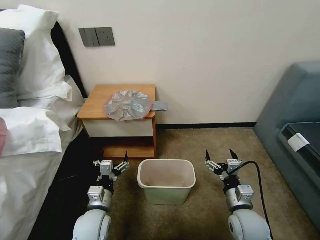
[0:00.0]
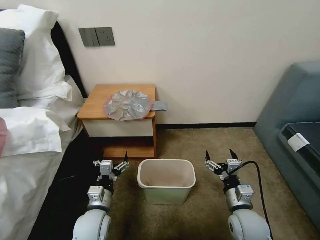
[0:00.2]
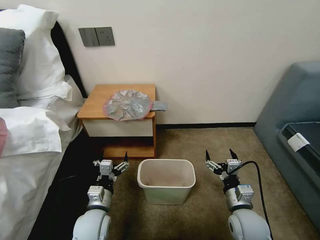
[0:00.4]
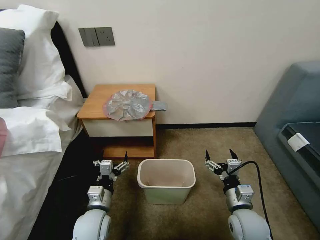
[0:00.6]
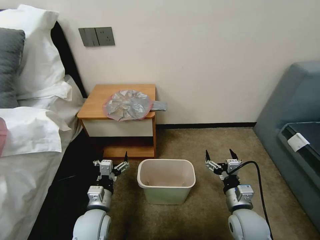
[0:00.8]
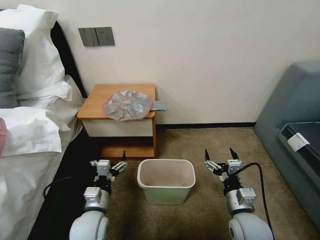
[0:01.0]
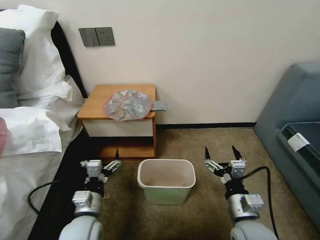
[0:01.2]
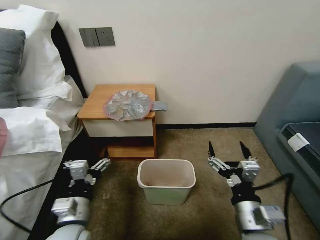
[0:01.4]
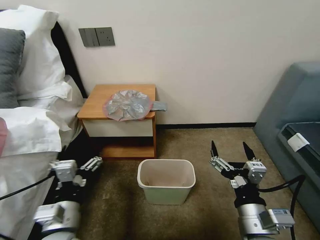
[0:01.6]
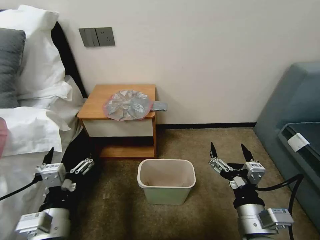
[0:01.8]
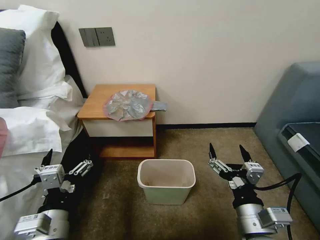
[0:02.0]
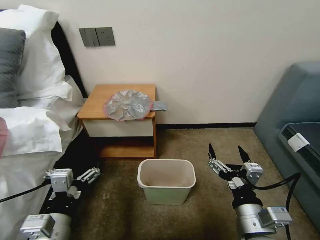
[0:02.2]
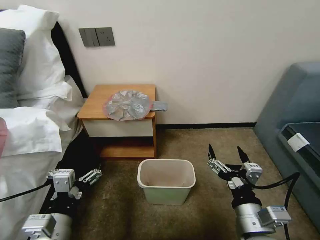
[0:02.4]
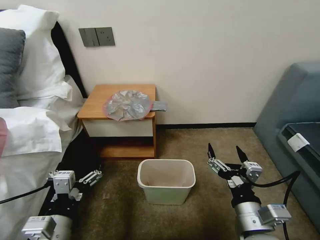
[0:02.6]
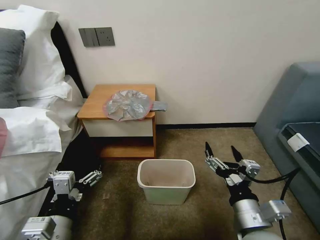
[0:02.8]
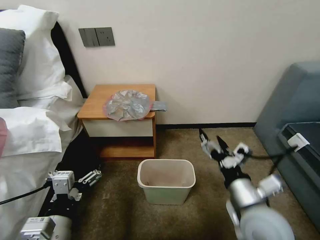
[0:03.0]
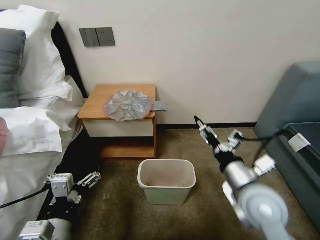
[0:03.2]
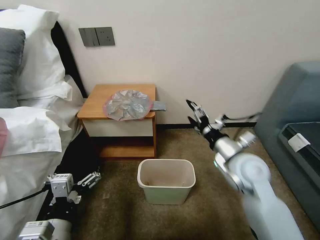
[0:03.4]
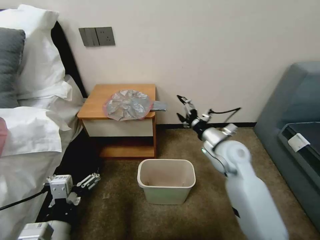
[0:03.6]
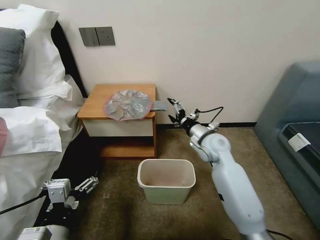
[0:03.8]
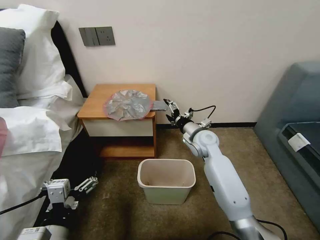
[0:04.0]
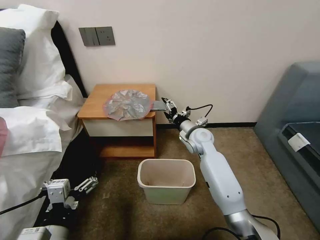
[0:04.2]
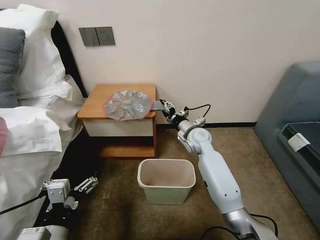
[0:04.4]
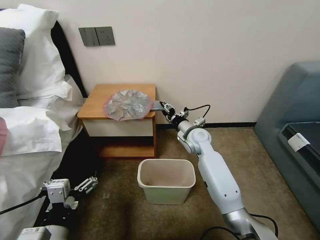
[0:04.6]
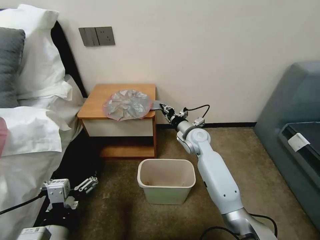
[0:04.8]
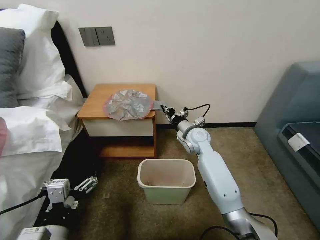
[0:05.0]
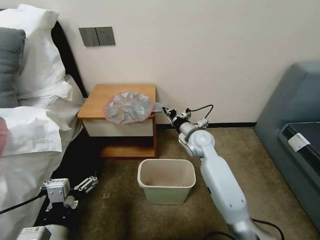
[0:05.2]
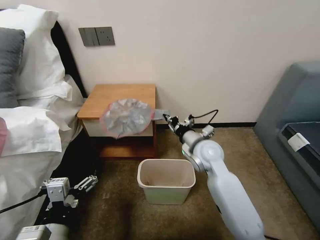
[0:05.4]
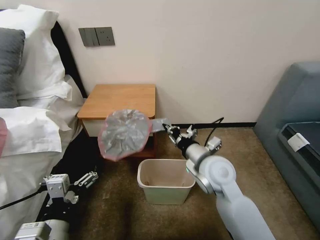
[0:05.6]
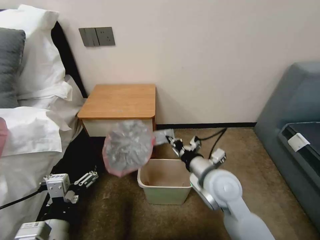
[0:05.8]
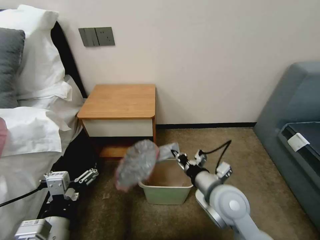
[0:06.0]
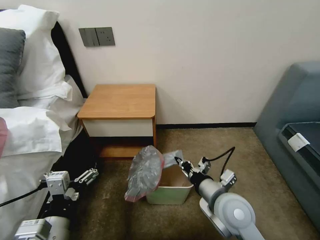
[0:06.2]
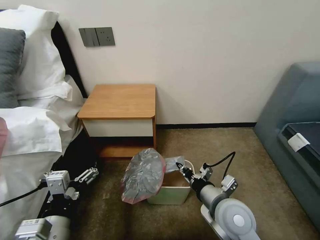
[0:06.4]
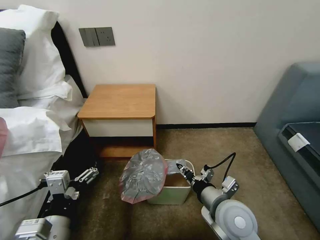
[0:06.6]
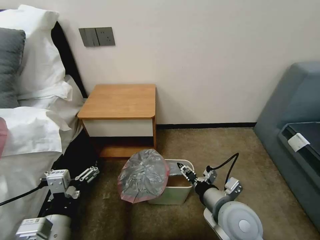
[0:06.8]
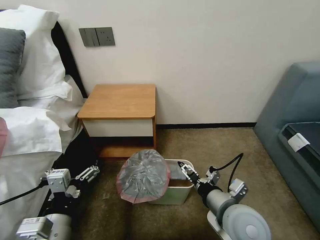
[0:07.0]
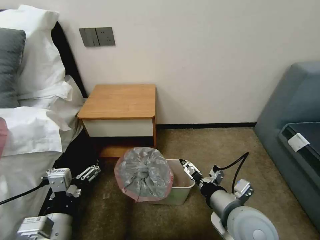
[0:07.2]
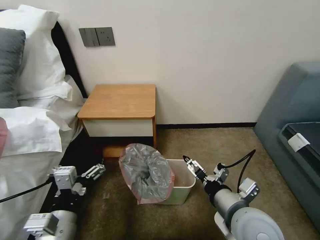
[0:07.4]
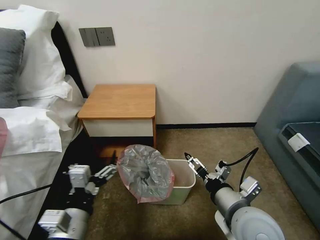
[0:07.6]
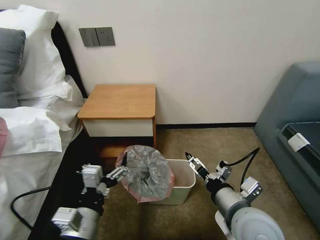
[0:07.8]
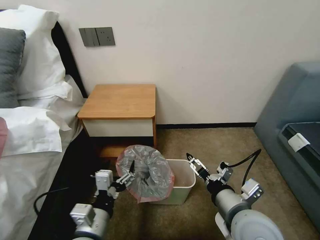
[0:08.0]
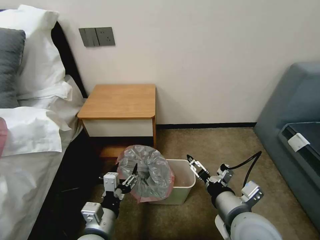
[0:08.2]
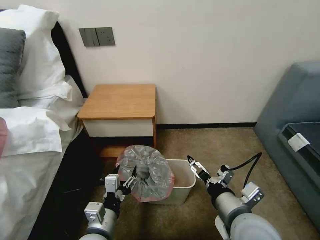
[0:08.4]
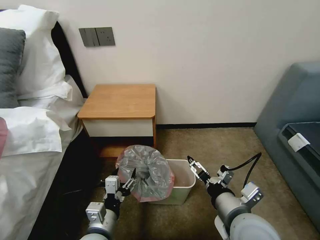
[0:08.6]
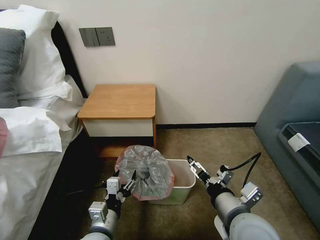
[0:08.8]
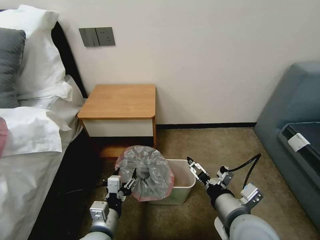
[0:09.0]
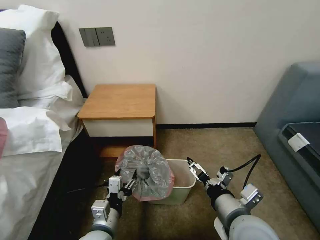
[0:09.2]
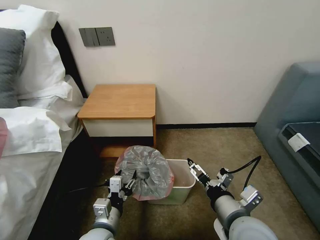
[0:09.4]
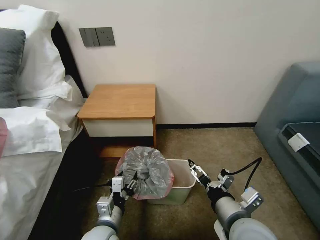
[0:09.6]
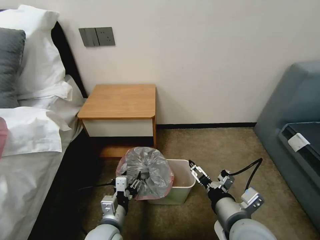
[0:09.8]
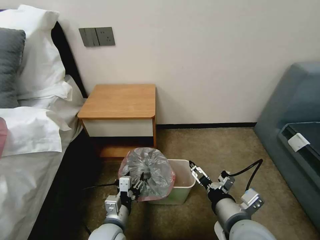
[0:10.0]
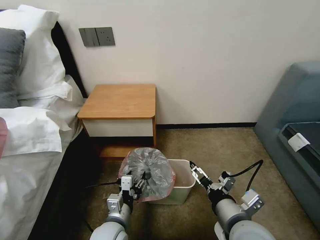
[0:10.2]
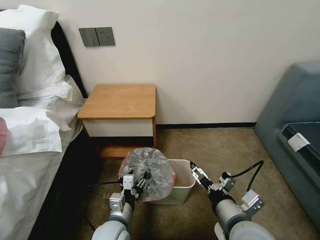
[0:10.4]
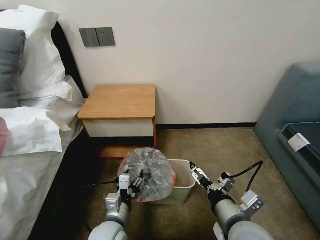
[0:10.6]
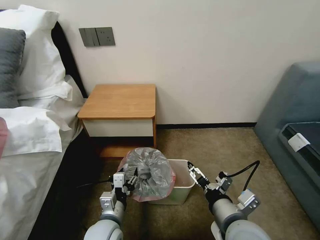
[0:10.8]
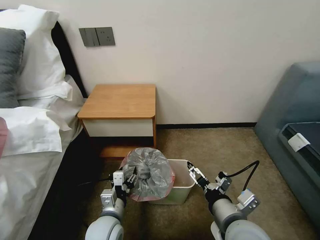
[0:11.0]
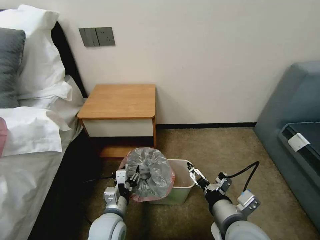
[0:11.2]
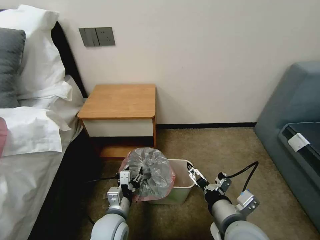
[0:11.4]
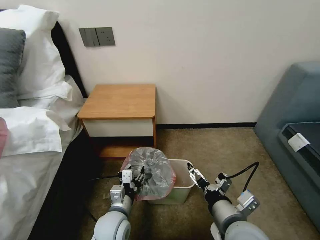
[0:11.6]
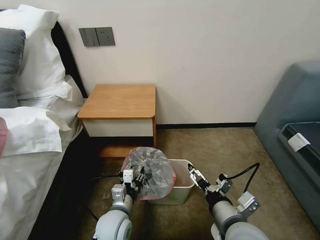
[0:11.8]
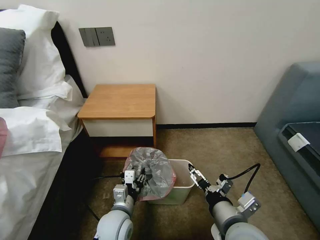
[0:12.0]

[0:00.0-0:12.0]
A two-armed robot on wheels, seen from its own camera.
Task of the whole recording: Pick up the garbage bag from the table and place it over the trash can.
0:01.6 to 0:03.0: The right gripper travels forward by some 5 cm.
0:03.0 to 0:04.4: The right gripper heads forward, covering roughly 30 cm.
0:04.4 to 0:06.0: The right gripper goes about 25 cm backward, and closes its fingers.
0:06.0 to 0:07.6: The right gripper travels backward by about 5 cm, and opens its fingers.
0:07.6 to 0:09.0: The left gripper goes approximately 10 cm downward.
0:09.0 to 0:10.4: The left gripper changes place by about 5 cm.
0:10.4 to 0:12.0: The grippers make only small movements.

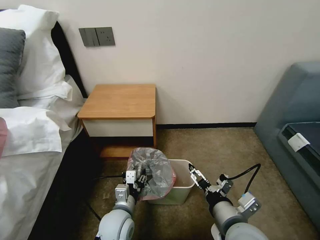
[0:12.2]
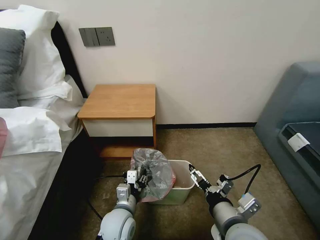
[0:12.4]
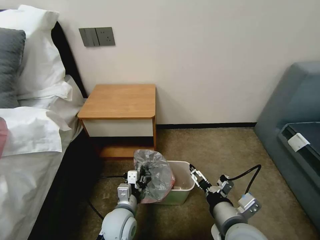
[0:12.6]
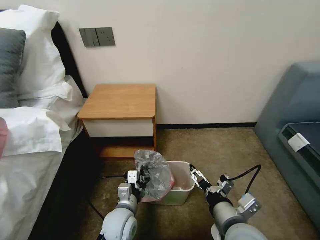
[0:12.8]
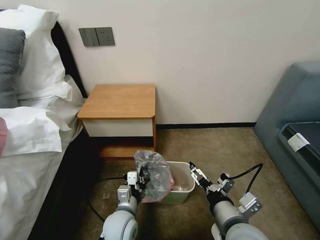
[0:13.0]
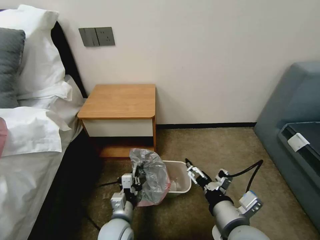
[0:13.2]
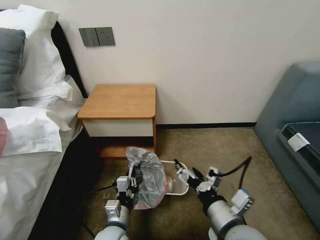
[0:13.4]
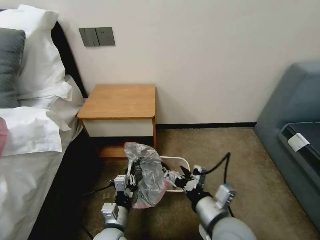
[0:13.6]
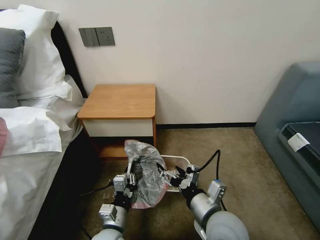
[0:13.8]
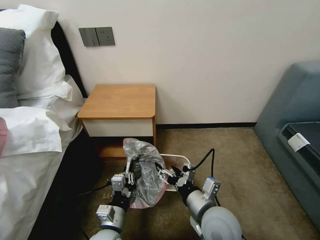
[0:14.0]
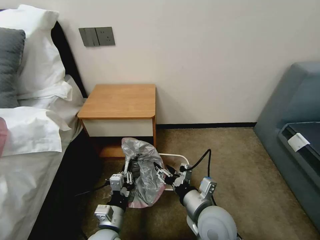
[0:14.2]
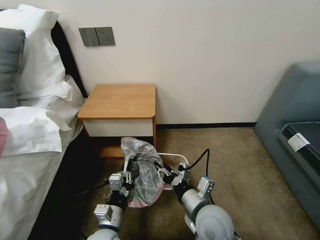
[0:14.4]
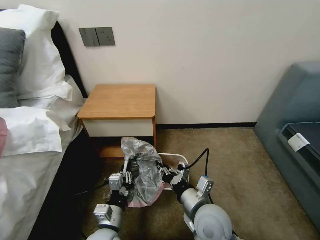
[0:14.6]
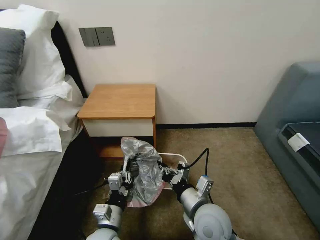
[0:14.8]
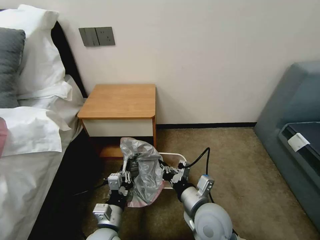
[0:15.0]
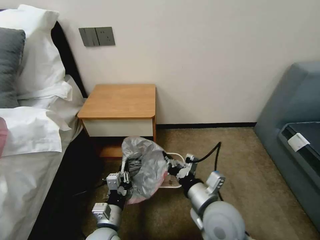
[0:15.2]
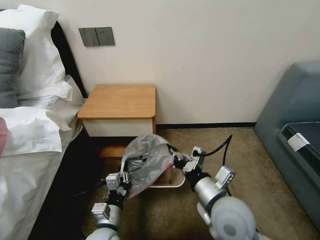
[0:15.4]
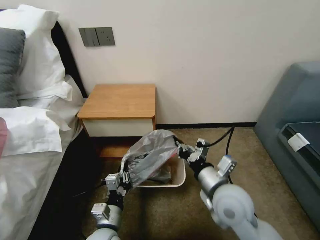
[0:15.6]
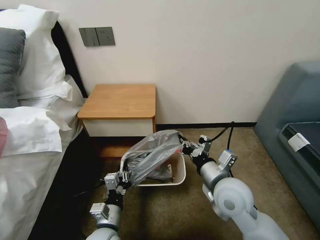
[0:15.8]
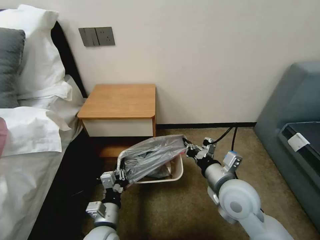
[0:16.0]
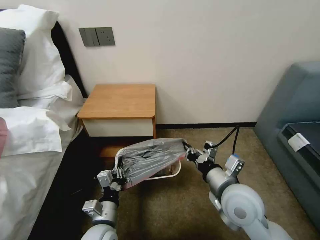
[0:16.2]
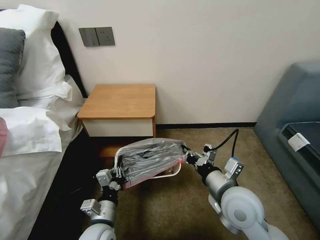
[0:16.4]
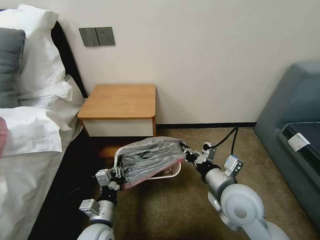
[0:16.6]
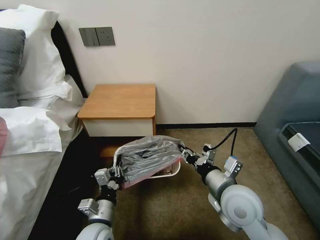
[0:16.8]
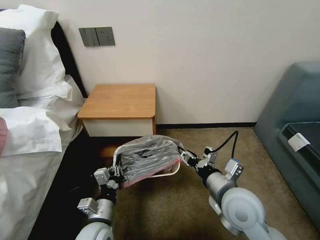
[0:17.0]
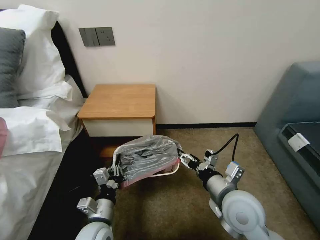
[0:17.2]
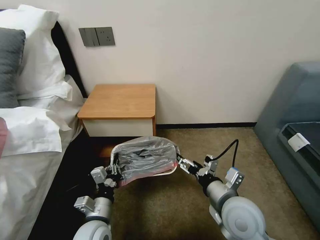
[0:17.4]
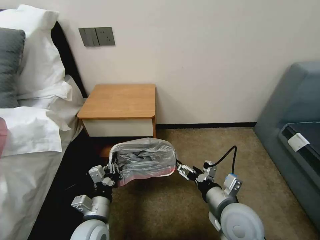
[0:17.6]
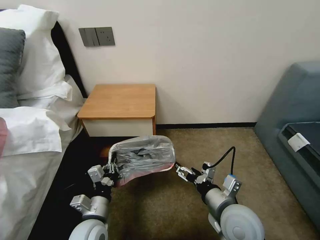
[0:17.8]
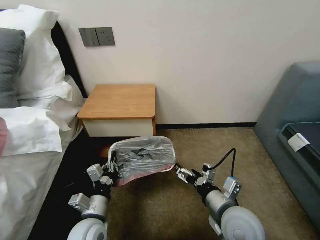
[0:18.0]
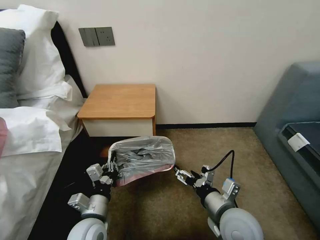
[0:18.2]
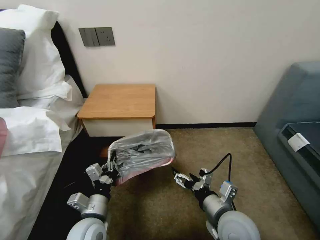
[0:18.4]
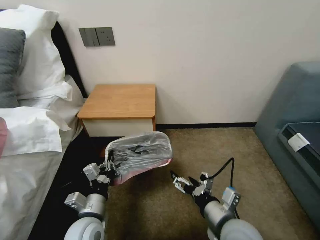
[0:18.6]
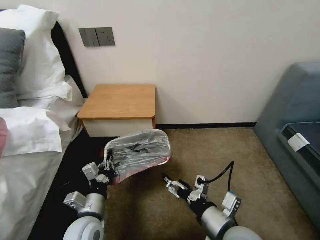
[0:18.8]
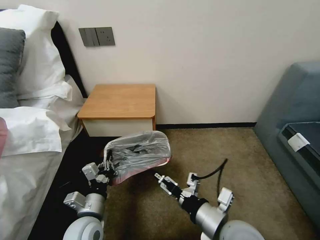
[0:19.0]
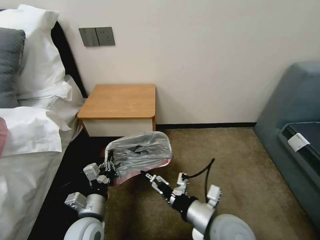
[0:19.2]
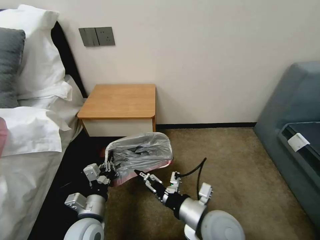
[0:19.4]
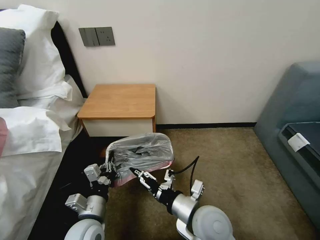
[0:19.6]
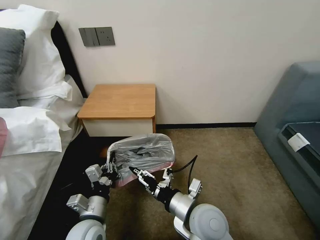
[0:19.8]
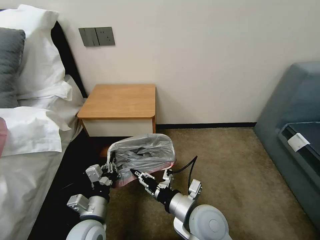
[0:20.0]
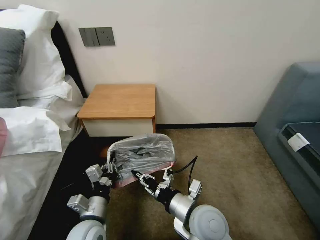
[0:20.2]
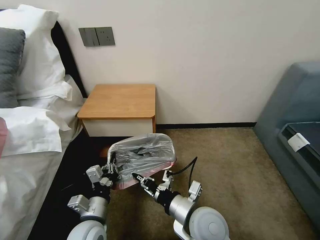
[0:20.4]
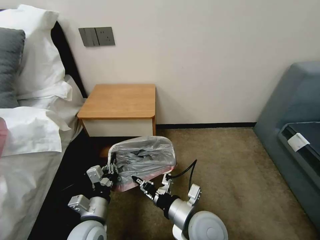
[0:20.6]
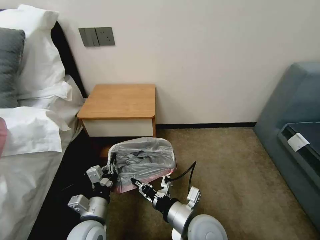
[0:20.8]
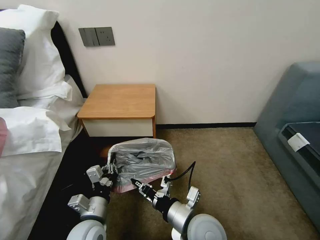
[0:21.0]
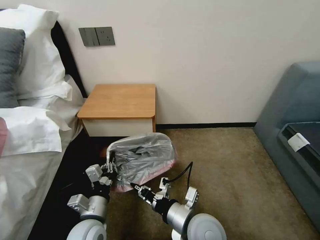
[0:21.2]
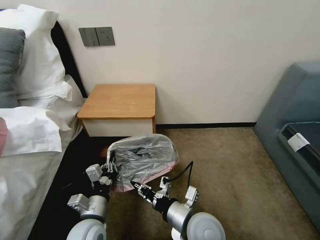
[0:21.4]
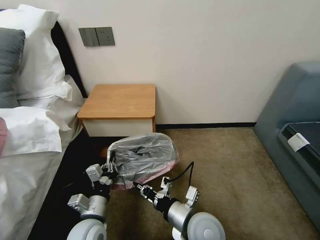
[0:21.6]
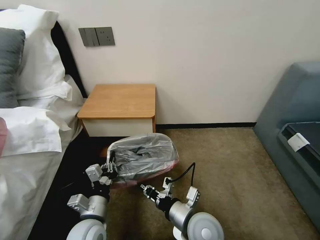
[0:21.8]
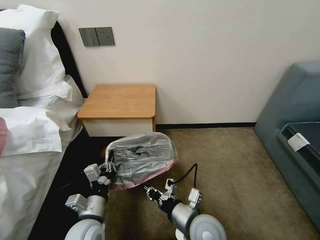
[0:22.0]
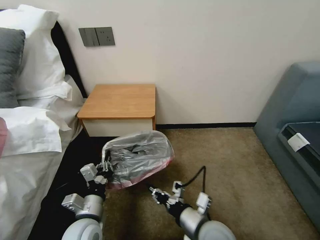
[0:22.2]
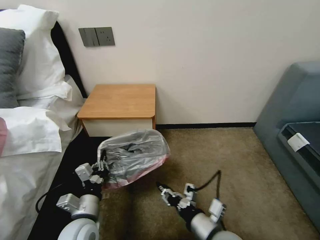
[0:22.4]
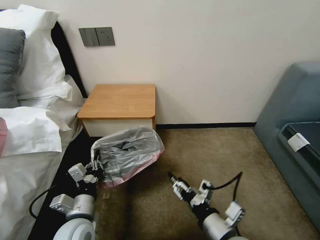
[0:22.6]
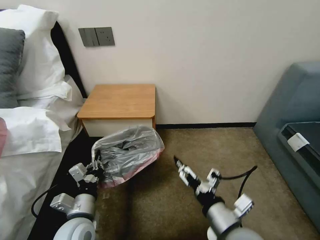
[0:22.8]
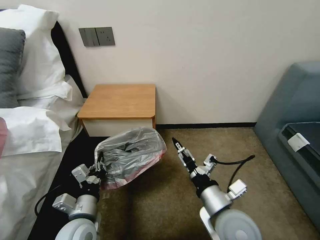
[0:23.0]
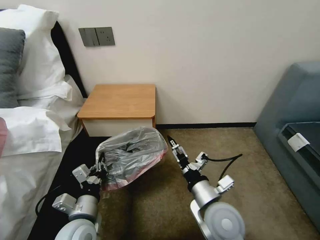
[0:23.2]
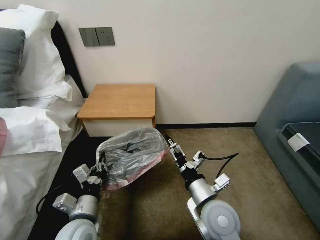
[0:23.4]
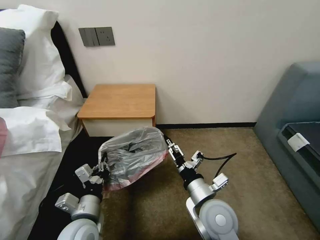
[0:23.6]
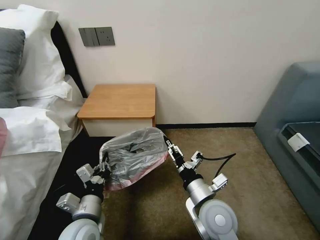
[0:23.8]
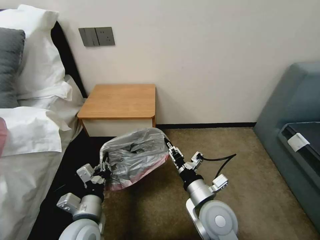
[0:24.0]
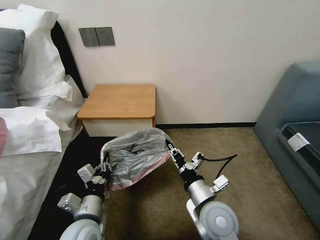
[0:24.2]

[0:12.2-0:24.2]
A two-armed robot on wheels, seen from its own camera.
Task of the whole recording: Pick up the garbage bag from the table and place it over the trash can.
0:12.2 to 0:13.8: The right gripper moves approximately 5 cm, while the left gripper changes place by approximately 5 cm, and closes.
0:13.8 to 0:15.2: The right gripper closes its fingers.
0:15.2 to 0:16.6: The right gripper moves to the right, some 5 cm.
0:16.6 to 0:18.2: The right gripper shifts by approximately 5 cm, and opens up.
0:18.2 to 0:19.8: The right gripper moves to the left, some 10 cm, and closes.
0:19.8 to 0:21.2: The right gripper closes its fingers.
0:21.2 to 0:22.6: The right gripper goes about 10 cm to the right and backward, and opens its fingers.
0:22.6 to 0:24.2: The right gripper moves forward, some 10 cm, and closes up.
